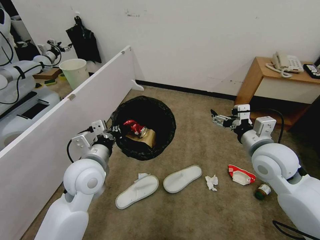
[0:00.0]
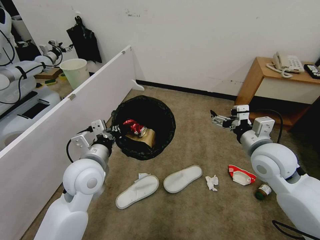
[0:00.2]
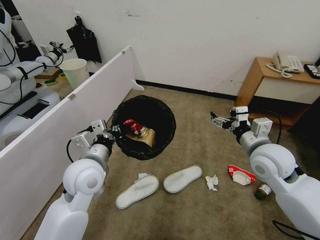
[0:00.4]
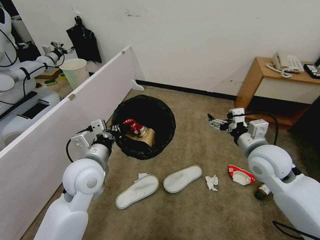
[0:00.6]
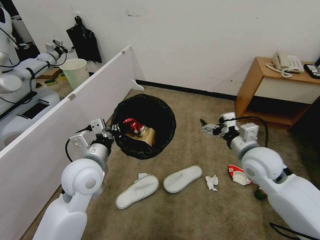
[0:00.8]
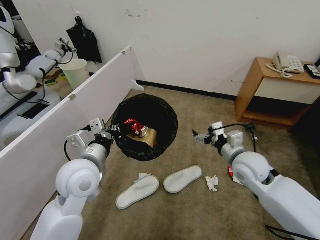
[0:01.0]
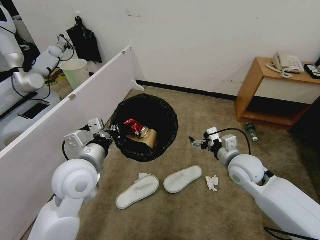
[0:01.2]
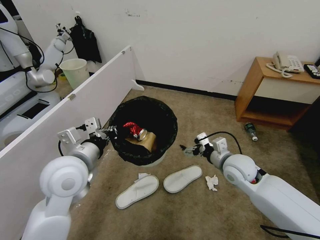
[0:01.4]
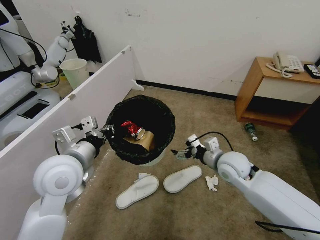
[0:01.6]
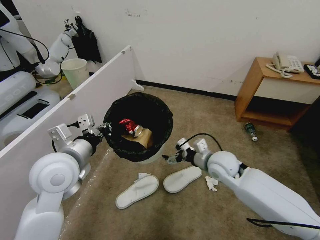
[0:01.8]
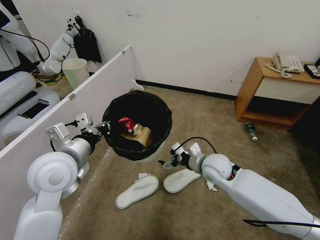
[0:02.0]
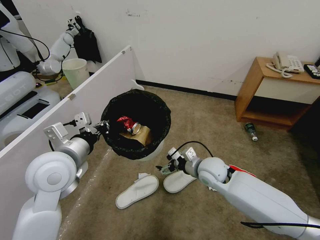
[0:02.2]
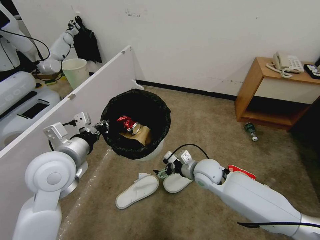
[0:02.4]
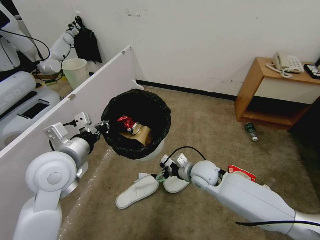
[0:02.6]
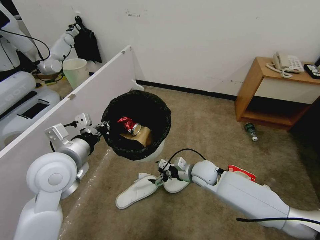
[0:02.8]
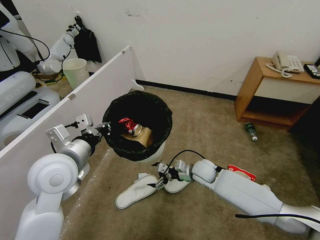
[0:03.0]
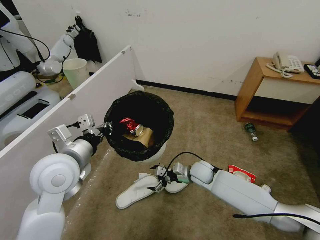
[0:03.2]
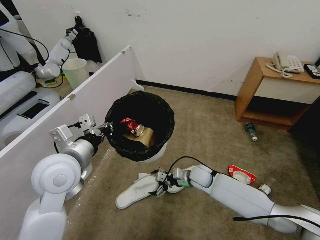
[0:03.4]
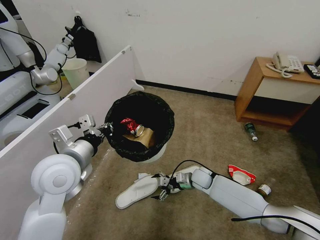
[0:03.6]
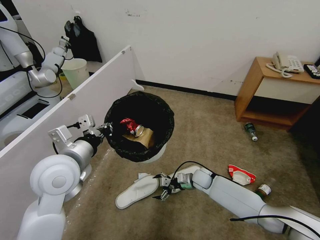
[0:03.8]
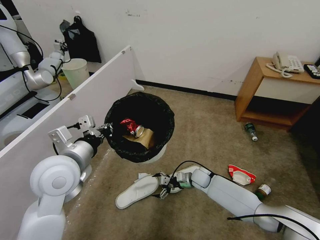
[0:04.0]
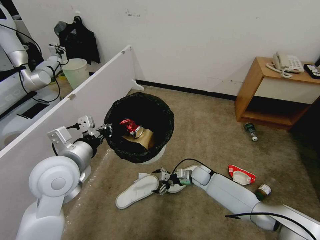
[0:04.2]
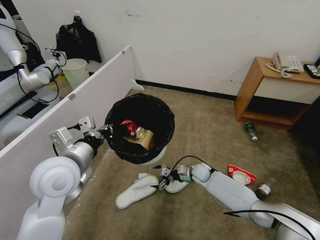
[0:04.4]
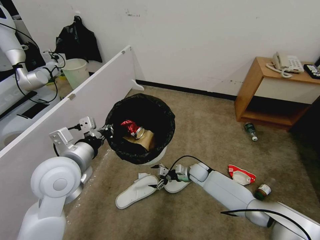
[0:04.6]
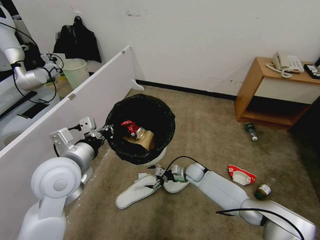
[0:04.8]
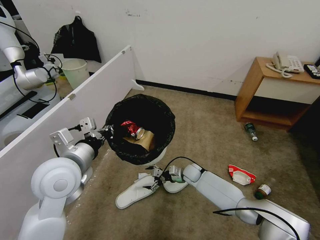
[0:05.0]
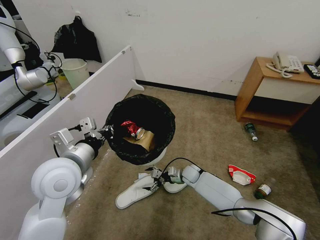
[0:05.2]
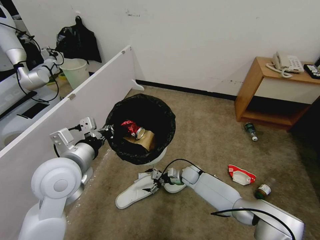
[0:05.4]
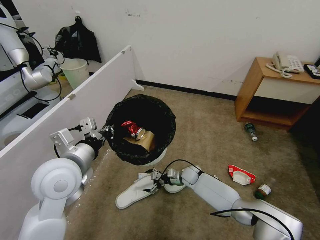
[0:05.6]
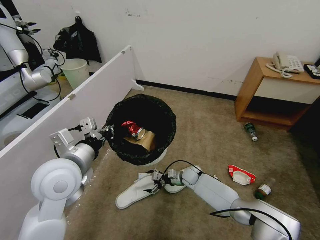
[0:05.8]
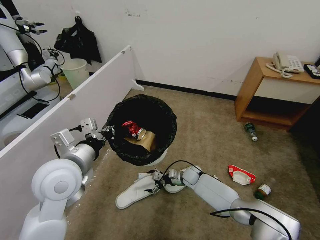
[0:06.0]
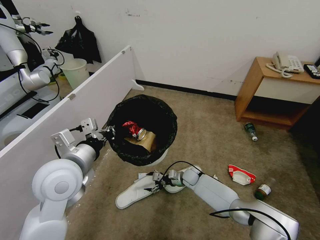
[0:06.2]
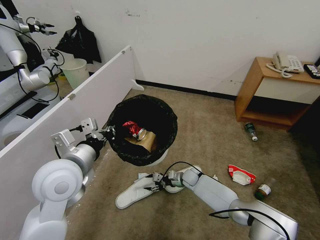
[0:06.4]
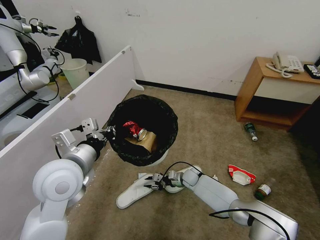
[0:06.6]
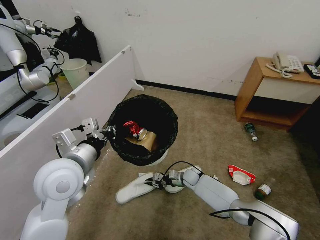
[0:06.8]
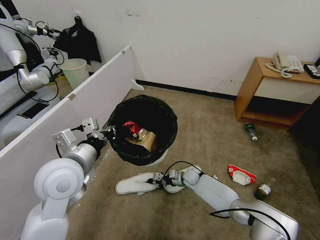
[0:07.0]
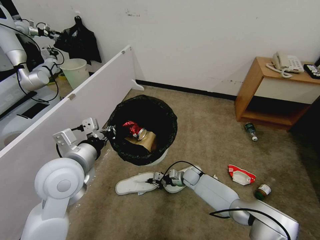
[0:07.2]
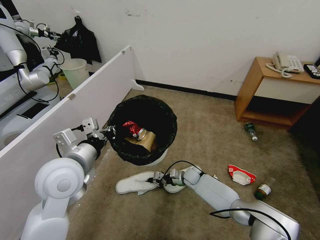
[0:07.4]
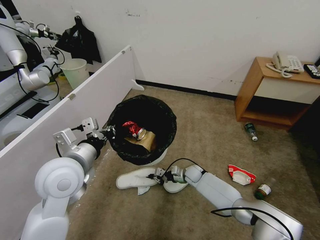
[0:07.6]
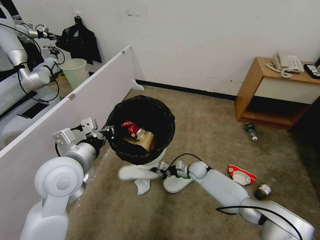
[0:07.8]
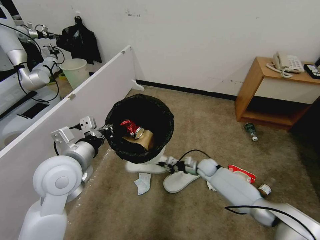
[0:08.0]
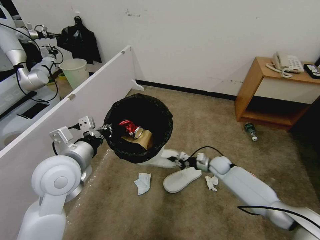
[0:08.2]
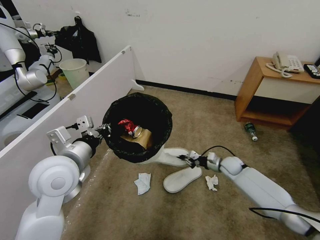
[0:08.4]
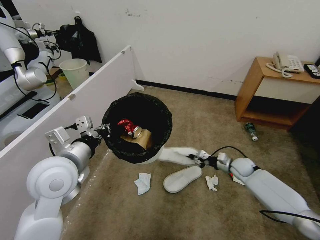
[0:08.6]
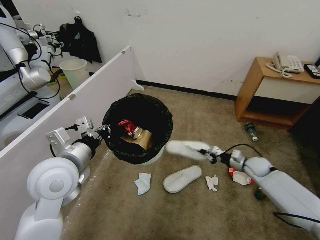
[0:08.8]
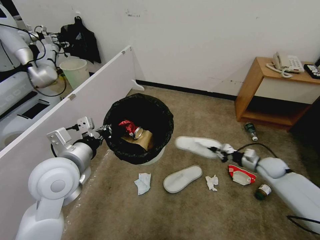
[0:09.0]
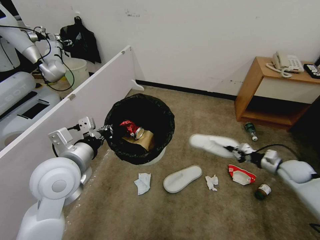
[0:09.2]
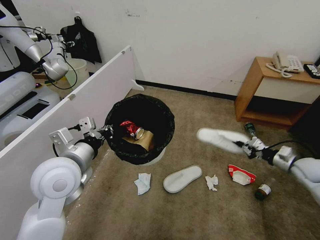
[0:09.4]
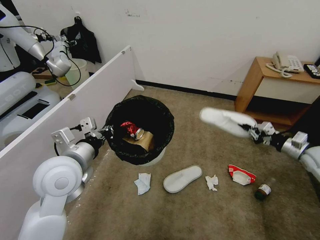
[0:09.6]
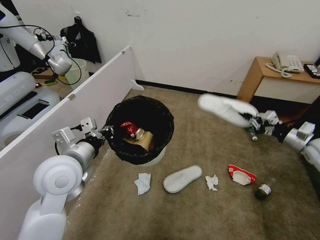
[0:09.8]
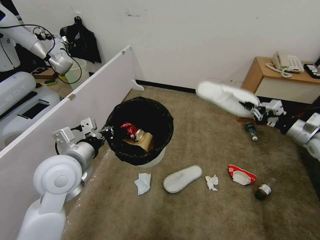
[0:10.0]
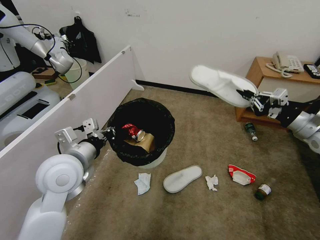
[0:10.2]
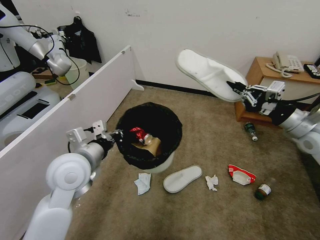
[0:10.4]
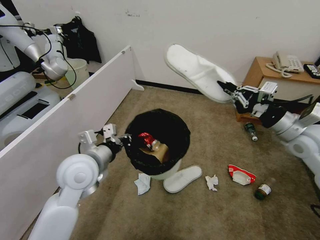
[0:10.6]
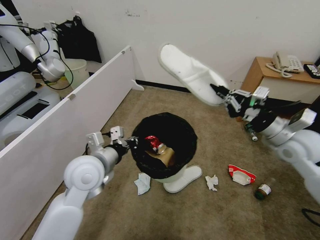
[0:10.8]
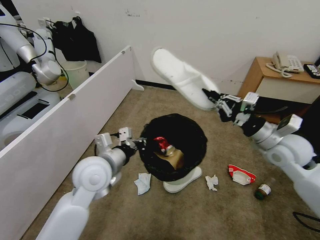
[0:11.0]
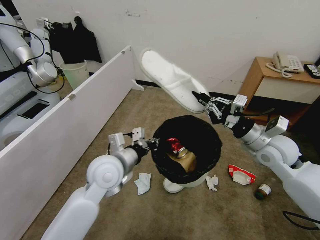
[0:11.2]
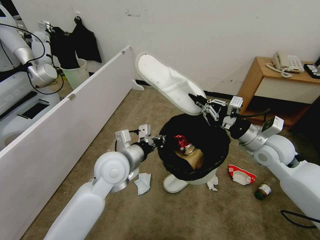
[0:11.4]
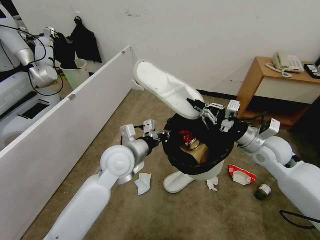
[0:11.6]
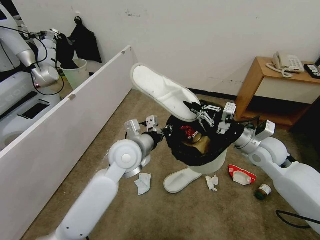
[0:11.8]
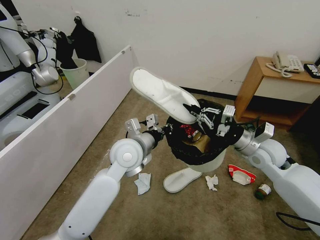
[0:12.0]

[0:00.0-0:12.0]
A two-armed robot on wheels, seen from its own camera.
Task of the whole recording: Pick up the trash bin, then pick up the garbage from the floor and place it into the trash bin.
0:00.0 to 0:01.6: The right gripper heads downward and to the left, covering roughly 10 cm. The left gripper ends up roughly 5 cm from where it was.
0:01.6 to 0:03.0: The right gripper heads downward and to the left, covering about 15 cm.
0:03.0 to 0:04.4: The right gripper moves downward, roughly 10 cm.
0:04.4 to 0:06.0: The right gripper ends up some 5 cm from where it was.
0:06.0 to 0:07.6: The right gripper closes up.
0:07.6 to 0:09.0: The right gripper is displaced to the right and upward by some 30 cm.
0:09.0 to 0:10.4: The right gripper goes roughly 25 cm upward.
0:10.4 to 0:12.0: The left gripper shifts approximately 15 cm to the right and forward; the right gripper travels to the left and downward by approximately 15 cm.

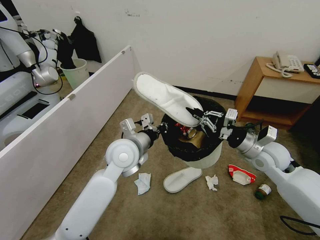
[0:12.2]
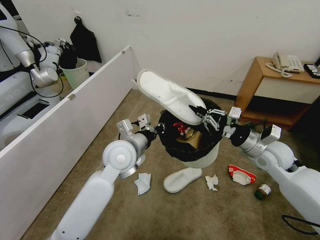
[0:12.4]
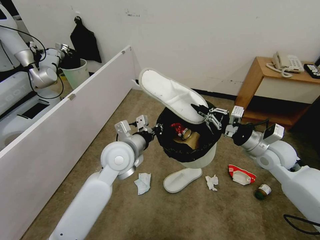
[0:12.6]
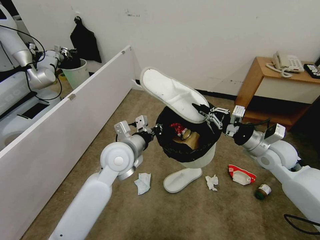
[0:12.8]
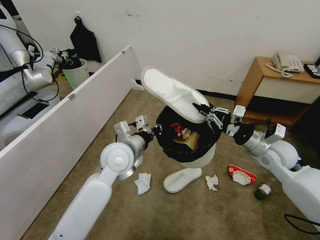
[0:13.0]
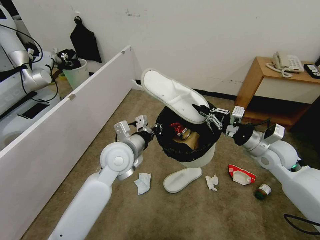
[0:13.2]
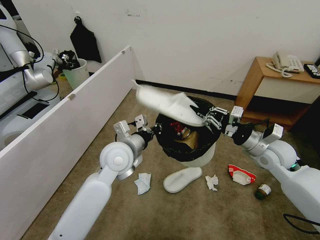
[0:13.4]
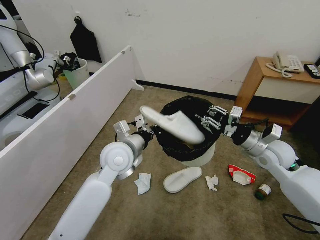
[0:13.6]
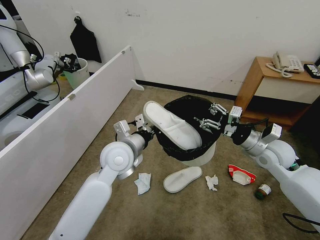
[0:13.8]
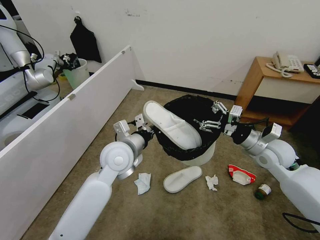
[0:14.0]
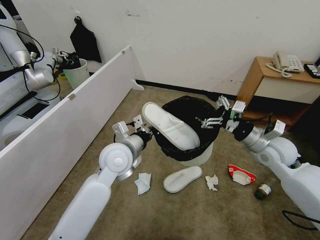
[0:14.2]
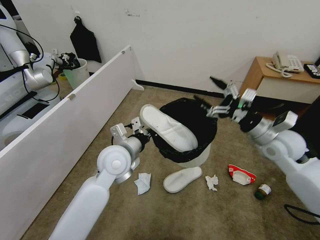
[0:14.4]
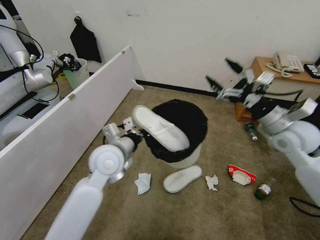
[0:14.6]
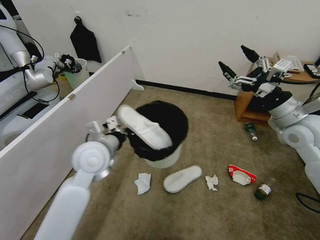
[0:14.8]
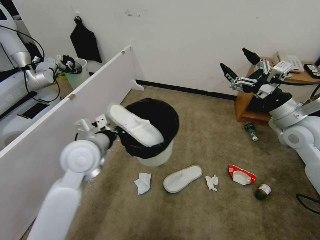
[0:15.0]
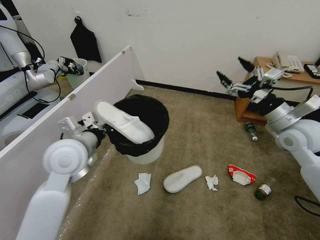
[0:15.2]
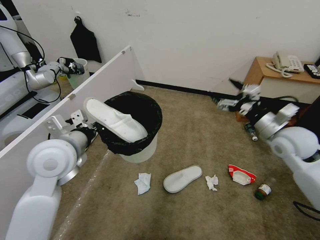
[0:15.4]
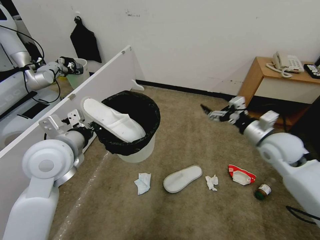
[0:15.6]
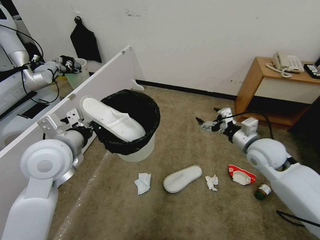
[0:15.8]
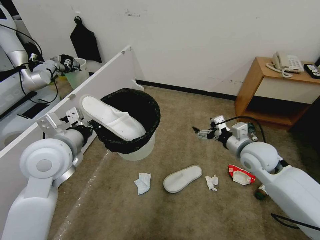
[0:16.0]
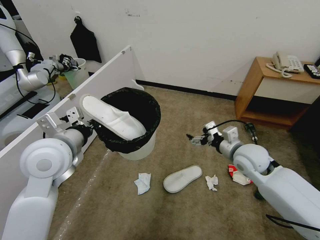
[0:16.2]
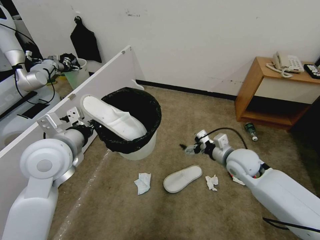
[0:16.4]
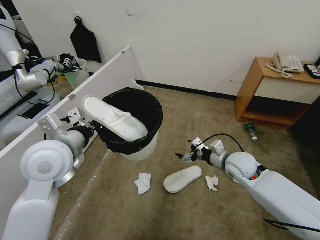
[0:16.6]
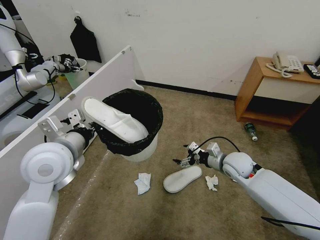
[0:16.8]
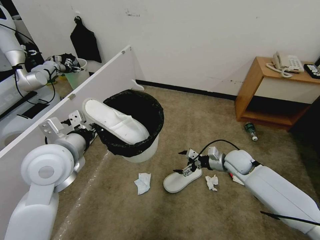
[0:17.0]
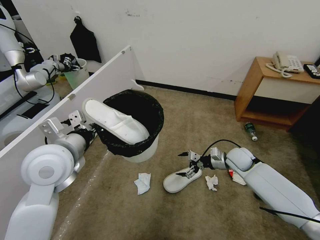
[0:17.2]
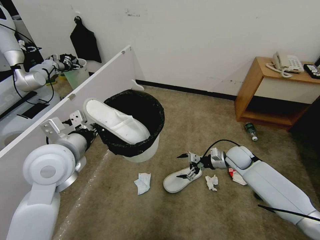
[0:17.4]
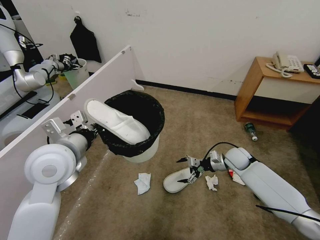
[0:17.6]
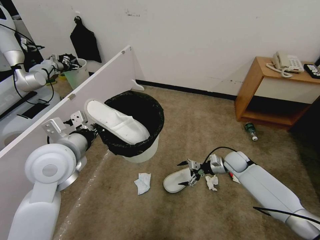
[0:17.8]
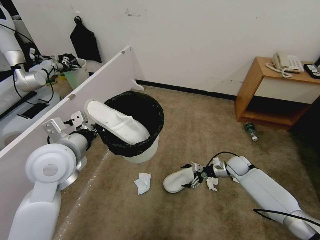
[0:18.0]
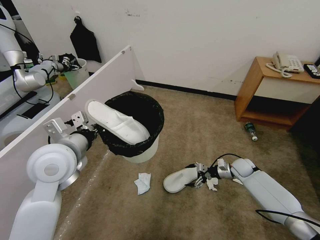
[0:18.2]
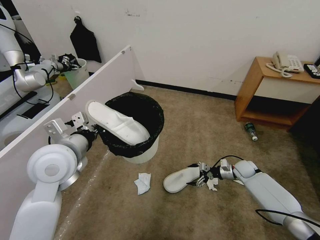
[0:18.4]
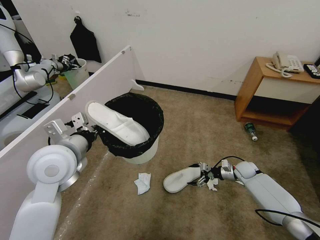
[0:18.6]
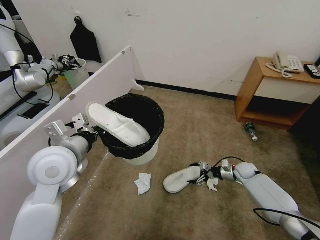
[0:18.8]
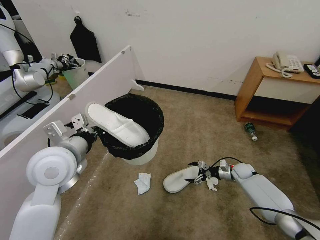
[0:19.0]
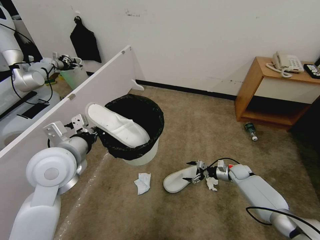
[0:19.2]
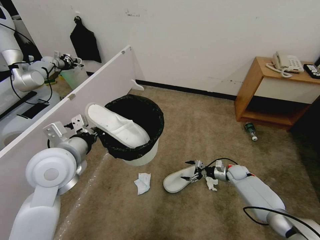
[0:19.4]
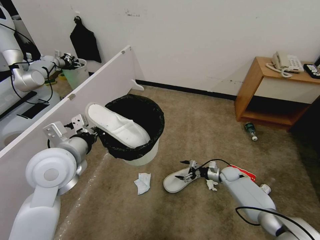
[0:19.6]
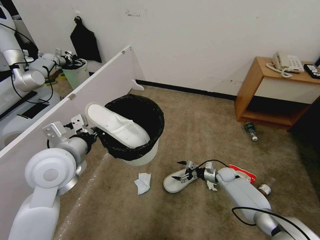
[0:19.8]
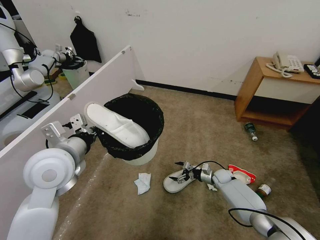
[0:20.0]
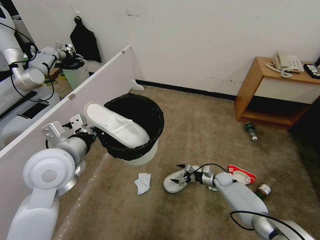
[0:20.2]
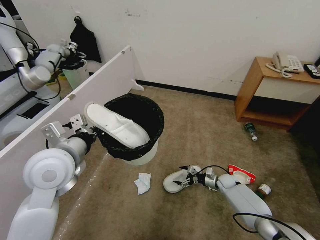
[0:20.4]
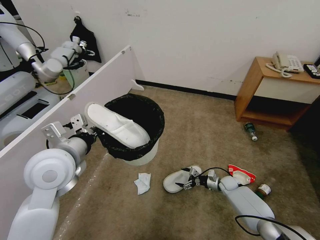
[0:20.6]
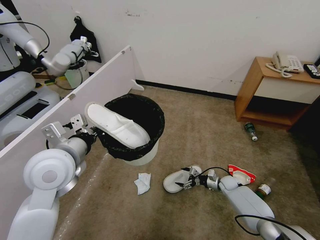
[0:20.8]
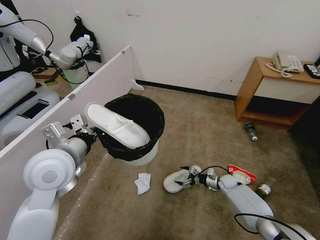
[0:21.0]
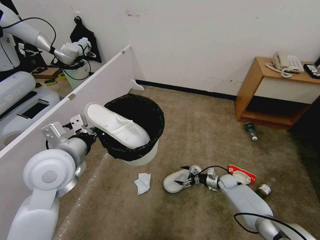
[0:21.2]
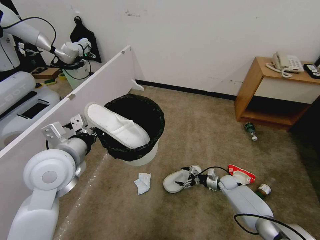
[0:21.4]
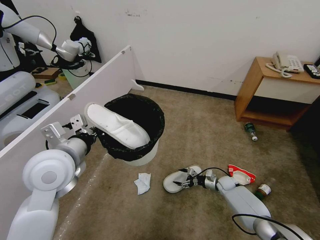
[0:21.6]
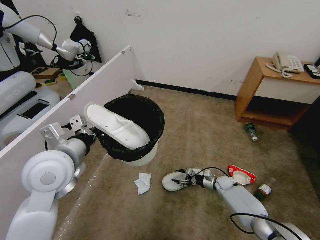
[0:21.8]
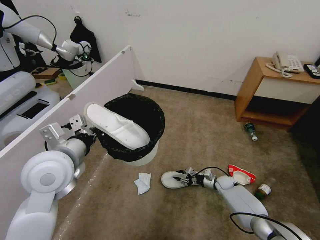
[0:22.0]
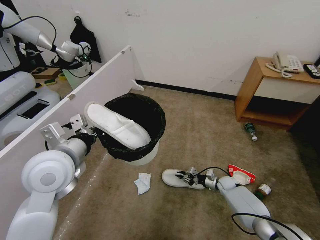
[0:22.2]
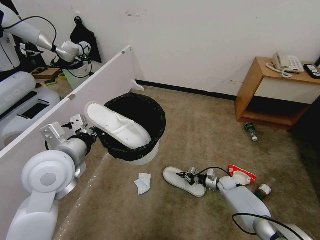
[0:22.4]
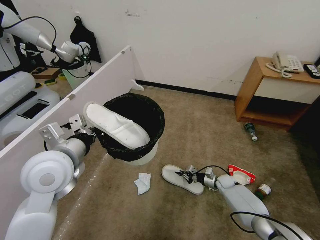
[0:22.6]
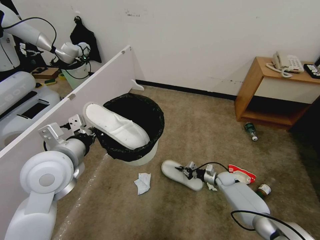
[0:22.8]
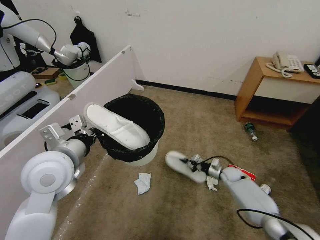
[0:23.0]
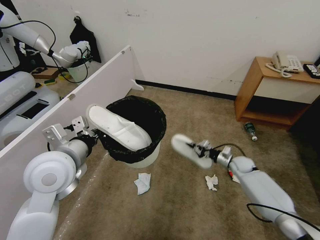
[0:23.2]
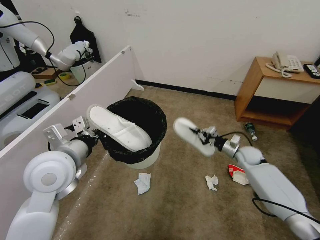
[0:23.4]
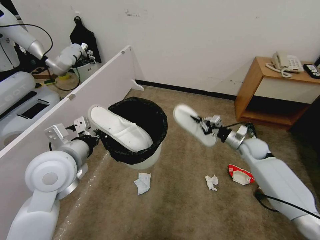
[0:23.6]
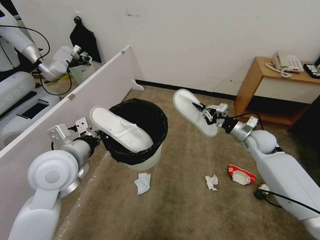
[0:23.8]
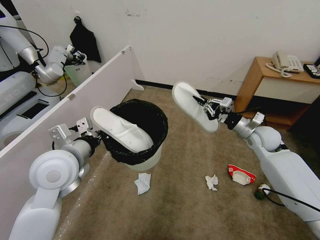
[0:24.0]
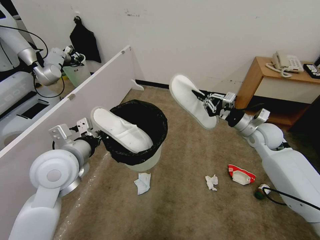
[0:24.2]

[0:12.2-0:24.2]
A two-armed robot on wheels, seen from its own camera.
Task of the whole recording: Pick up the trash bin, then pick up the garbage from the floor and place it into the trash bin.
0:12.2 to 0:13.8: The right gripper opens up.
0:13.8 to 0:15.2: The left gripper shifts roughly 10 cm to the left. The right gripper shifts about 10 cm upward, and opens.
0:15.2 to 0:16.6: The right gripper shifts some 20 cm downward and to the left.
0:16.6 to 0:18.2: The right gripper is displaced downward, to the right and forward by roughly 20 cm.
0:18.2 to 0:19.8: The right gripper is displaced downward by some 10 cm.
0:19.8 to 0:21.2: The grippers make only small movements.
0:21.2 to 0:22.6: The right gripper closes.
0:22.6 to 0:24.2: The right gripper heads upward, covering roughly 35 cm.
